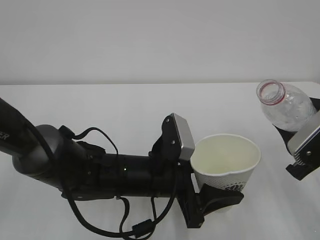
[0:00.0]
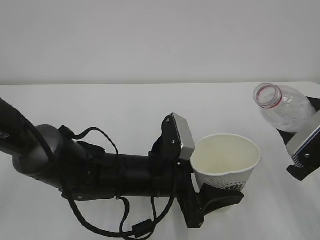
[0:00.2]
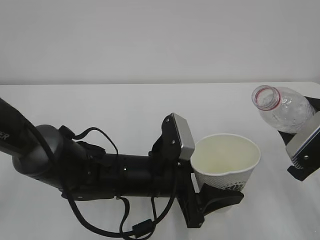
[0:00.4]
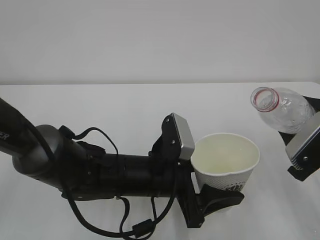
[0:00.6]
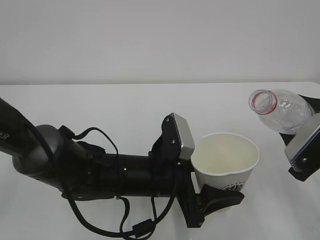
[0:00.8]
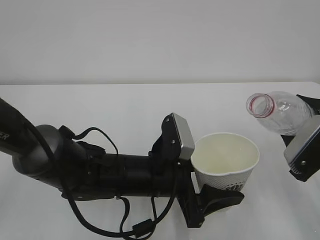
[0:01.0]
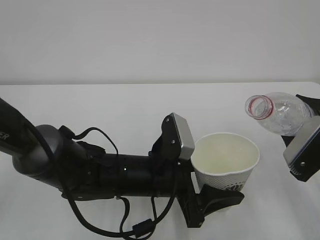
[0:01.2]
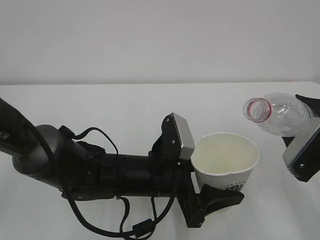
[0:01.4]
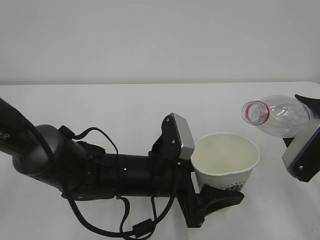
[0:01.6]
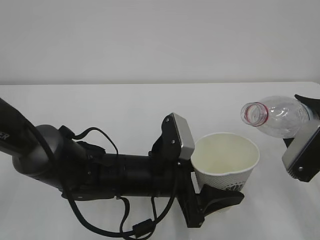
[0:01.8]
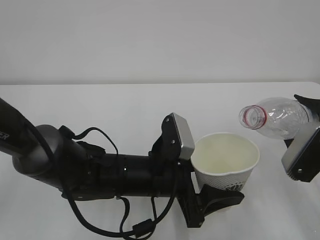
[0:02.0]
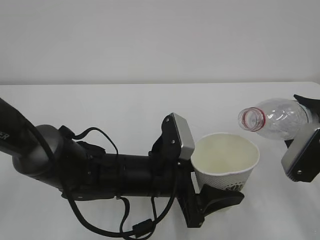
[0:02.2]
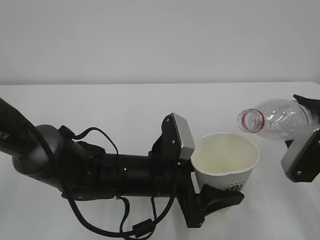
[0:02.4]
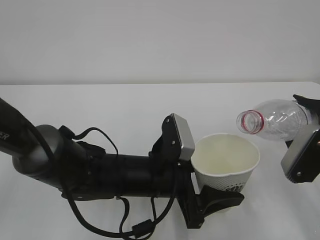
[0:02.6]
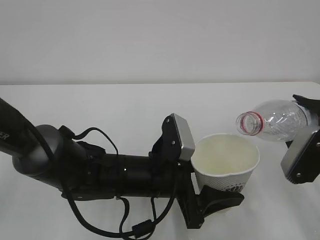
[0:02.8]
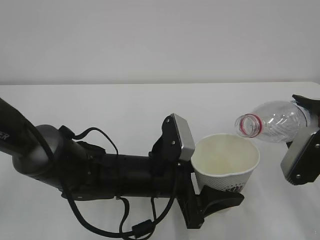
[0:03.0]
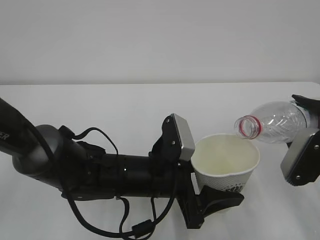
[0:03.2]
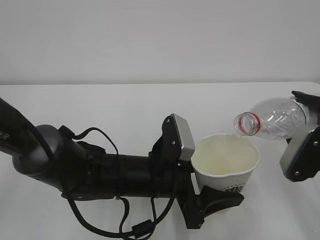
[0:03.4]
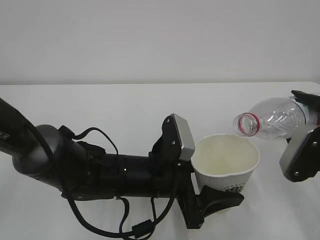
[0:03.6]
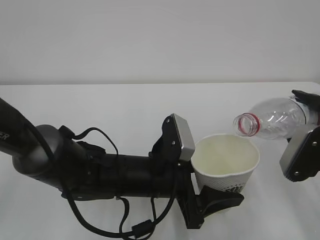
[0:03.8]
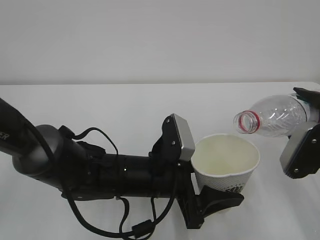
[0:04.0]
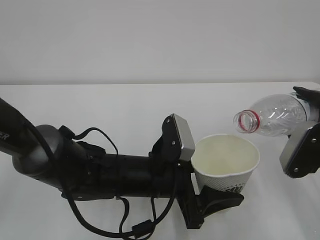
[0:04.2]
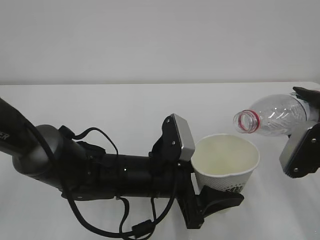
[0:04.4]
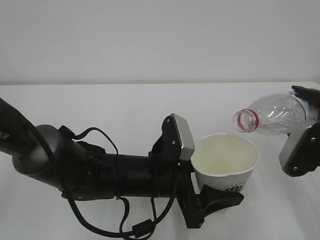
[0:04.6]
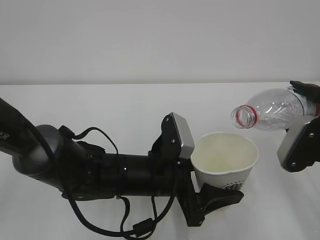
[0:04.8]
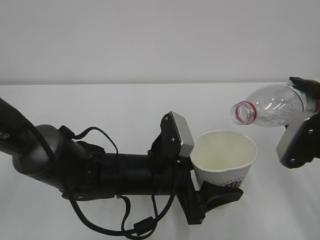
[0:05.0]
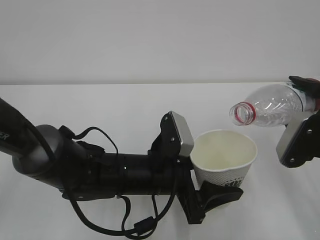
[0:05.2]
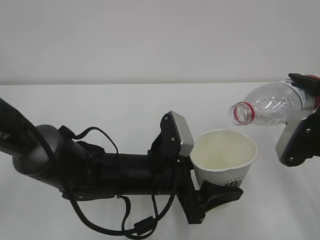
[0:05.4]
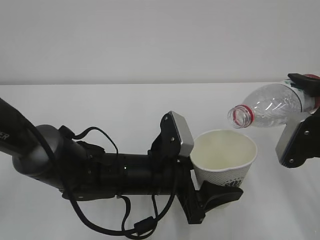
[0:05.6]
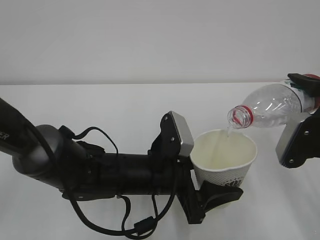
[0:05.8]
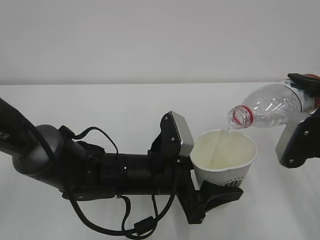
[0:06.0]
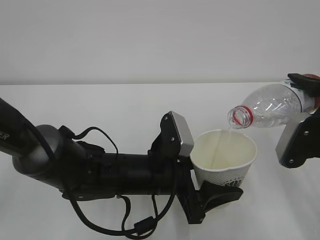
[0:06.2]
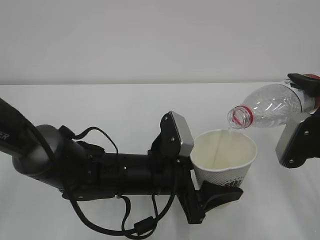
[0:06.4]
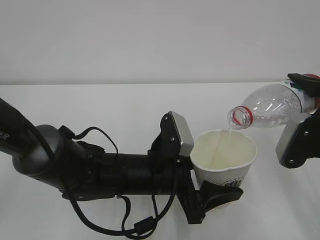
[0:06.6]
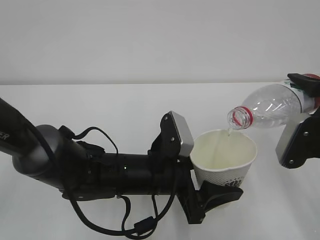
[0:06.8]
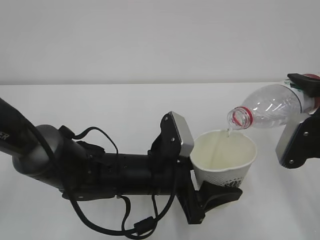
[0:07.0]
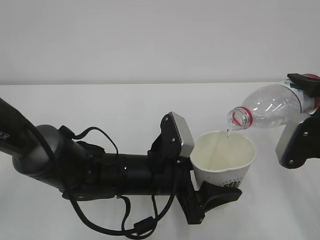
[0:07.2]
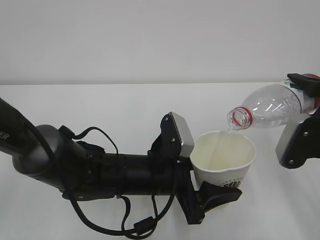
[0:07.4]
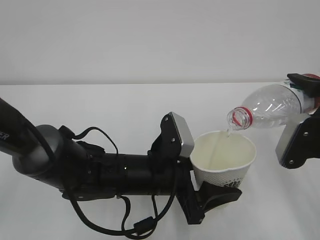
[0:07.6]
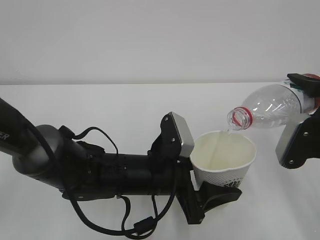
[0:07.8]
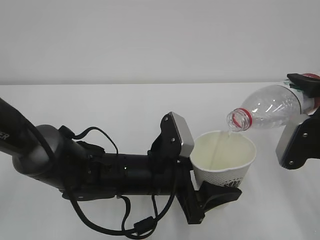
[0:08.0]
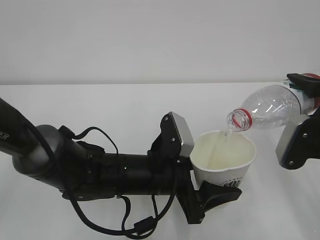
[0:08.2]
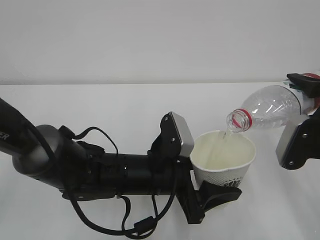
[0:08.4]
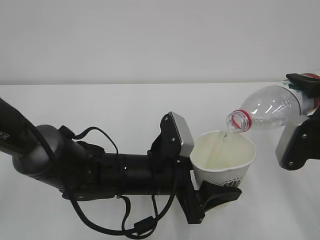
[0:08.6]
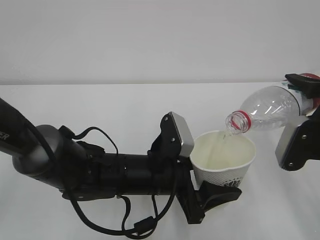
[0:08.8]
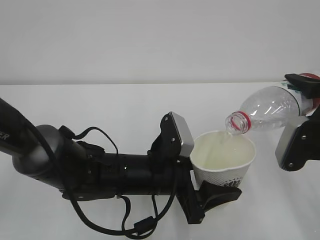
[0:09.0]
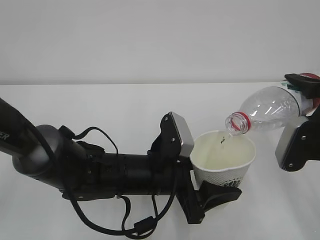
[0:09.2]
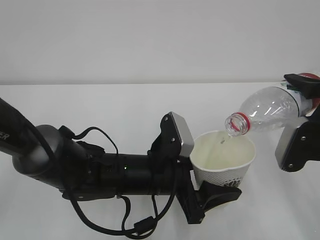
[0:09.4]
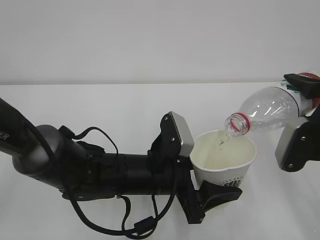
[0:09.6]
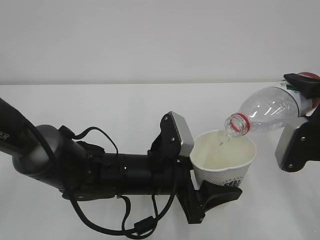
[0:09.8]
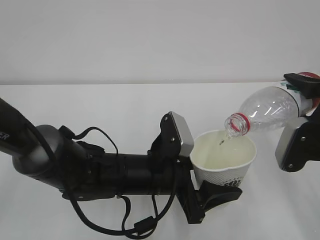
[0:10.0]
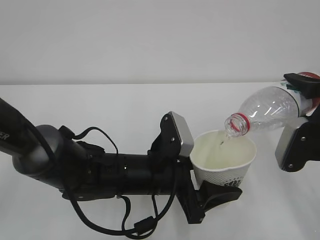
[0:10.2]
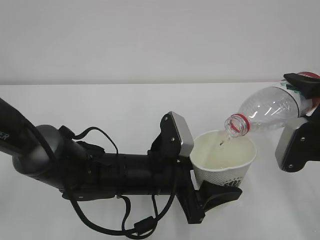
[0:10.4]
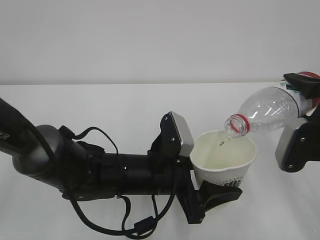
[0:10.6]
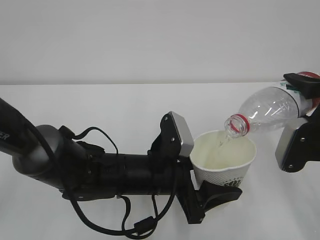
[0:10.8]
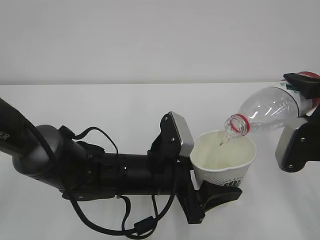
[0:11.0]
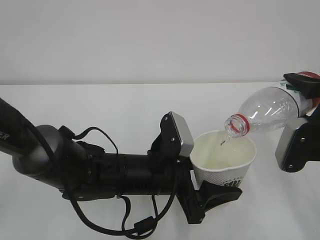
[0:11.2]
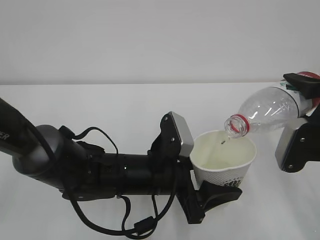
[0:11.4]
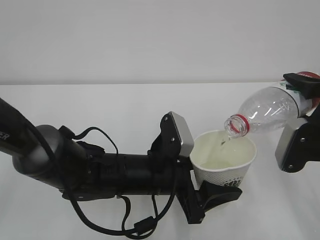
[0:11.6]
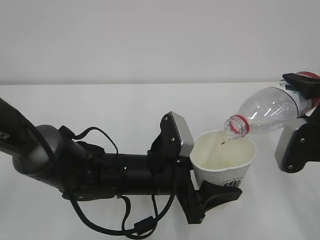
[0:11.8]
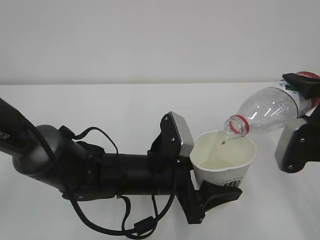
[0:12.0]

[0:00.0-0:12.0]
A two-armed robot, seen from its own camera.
0:00.0 to 0:01.6: The grippers stay close to where they were, moving slightly.
0:01.6 to 0:03.0: The grippers make only small movements.
0:03.0 to 0:04.4: The two grippers keep their place.
0:04.4 to 0:06.0: The grippers move only a little.
0:06.0 to 0:09.0: Neither gripper changes place.
0:09.0 to 0:12.0: Both grippers stay about where they are.

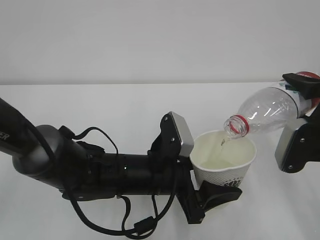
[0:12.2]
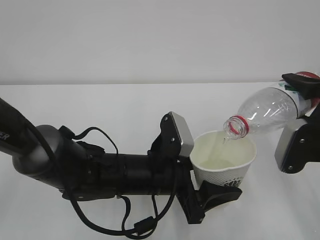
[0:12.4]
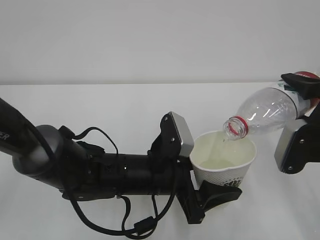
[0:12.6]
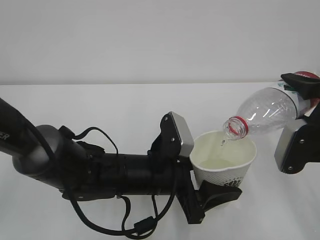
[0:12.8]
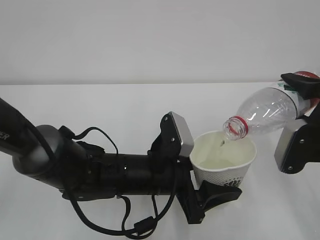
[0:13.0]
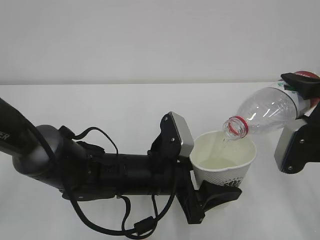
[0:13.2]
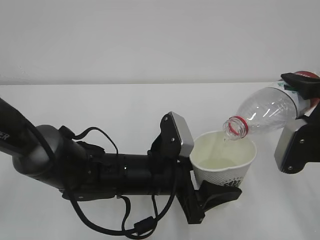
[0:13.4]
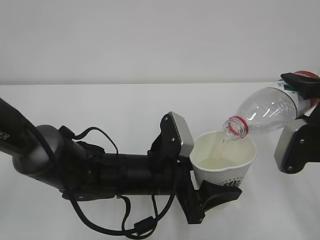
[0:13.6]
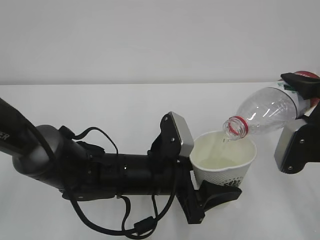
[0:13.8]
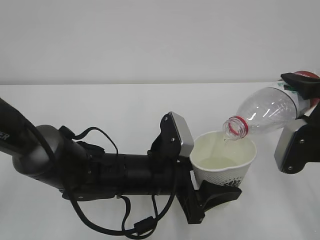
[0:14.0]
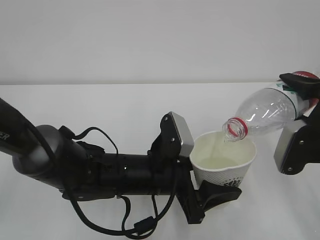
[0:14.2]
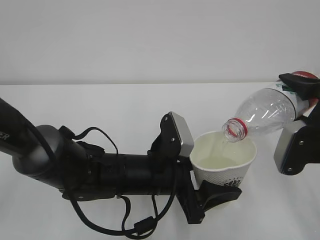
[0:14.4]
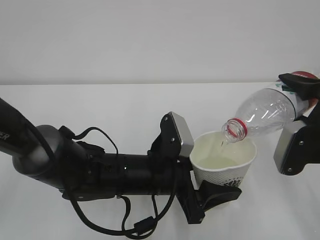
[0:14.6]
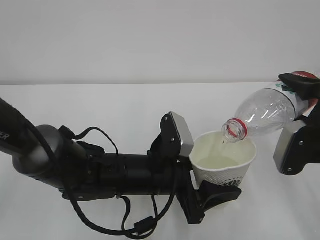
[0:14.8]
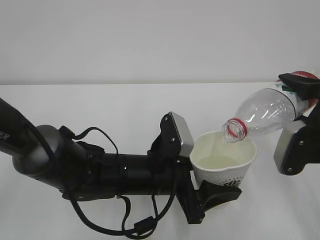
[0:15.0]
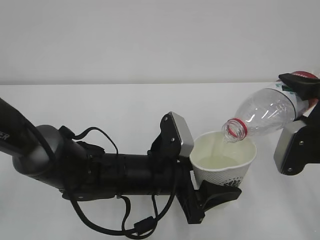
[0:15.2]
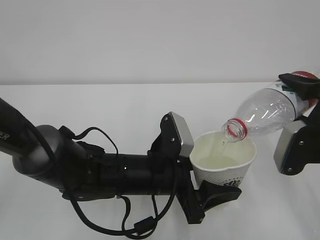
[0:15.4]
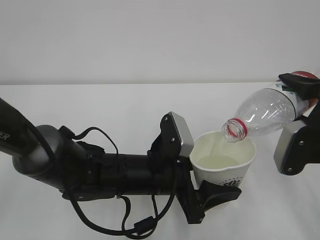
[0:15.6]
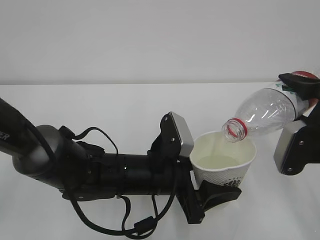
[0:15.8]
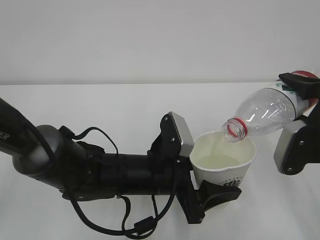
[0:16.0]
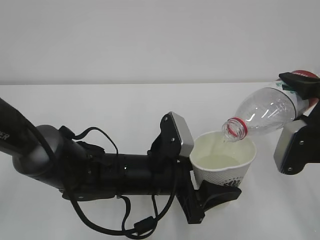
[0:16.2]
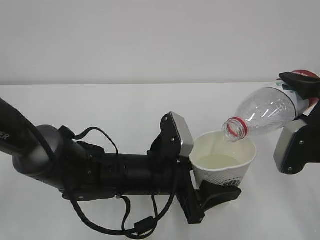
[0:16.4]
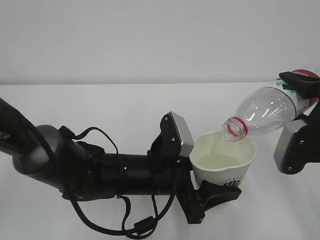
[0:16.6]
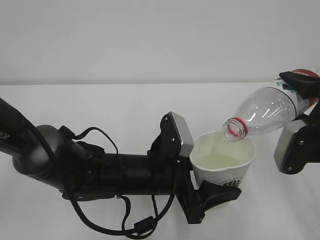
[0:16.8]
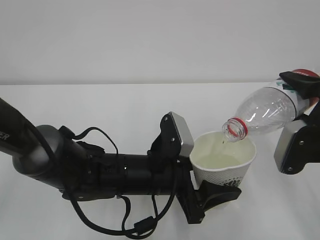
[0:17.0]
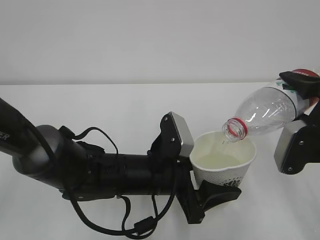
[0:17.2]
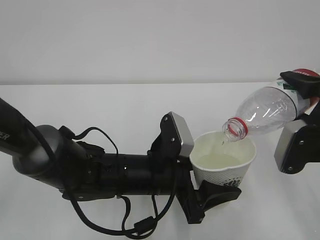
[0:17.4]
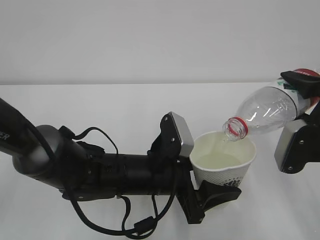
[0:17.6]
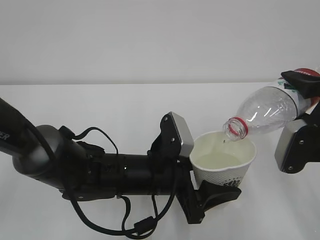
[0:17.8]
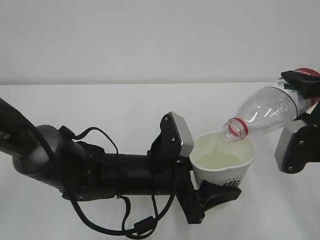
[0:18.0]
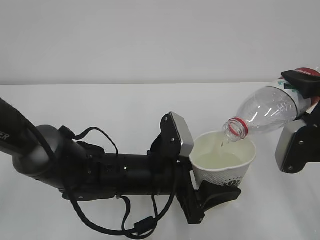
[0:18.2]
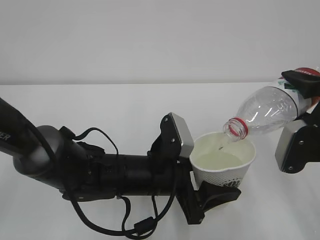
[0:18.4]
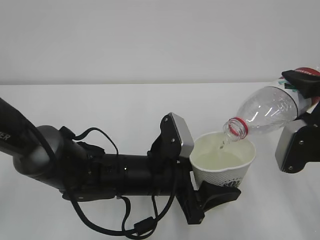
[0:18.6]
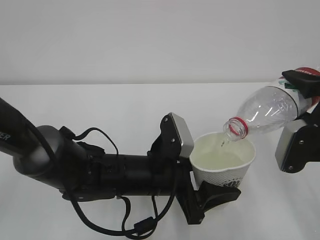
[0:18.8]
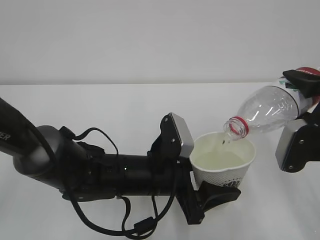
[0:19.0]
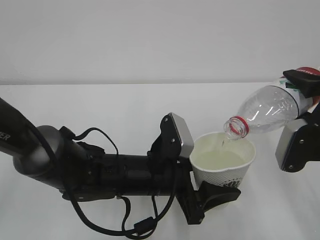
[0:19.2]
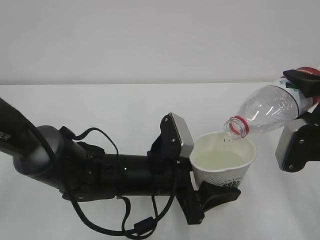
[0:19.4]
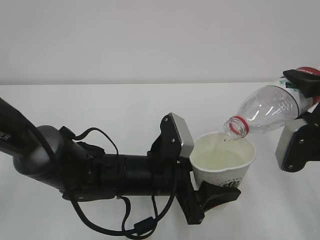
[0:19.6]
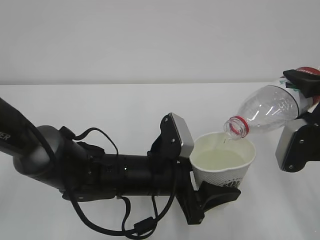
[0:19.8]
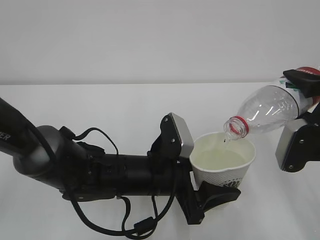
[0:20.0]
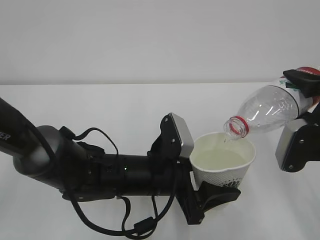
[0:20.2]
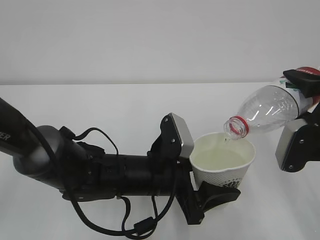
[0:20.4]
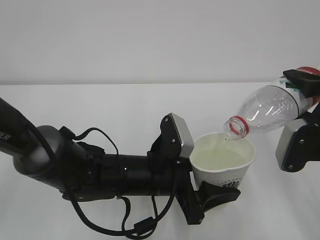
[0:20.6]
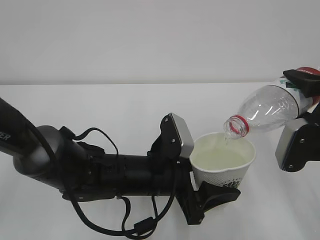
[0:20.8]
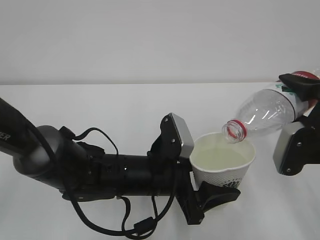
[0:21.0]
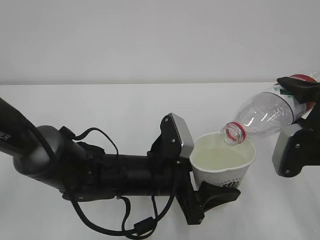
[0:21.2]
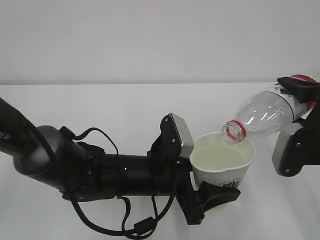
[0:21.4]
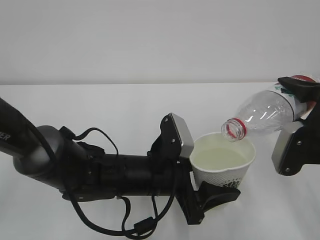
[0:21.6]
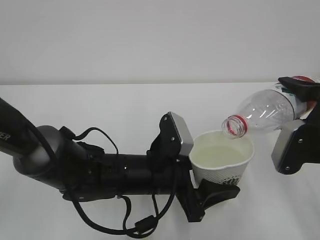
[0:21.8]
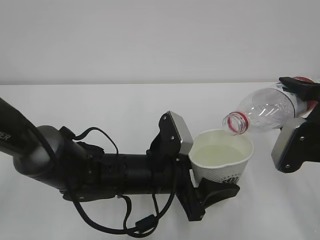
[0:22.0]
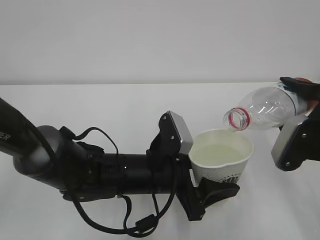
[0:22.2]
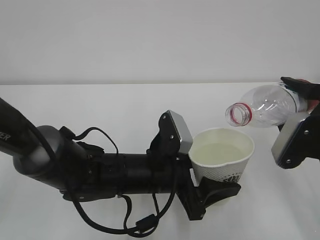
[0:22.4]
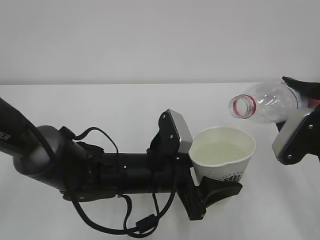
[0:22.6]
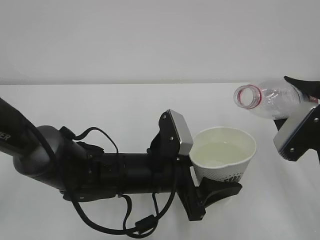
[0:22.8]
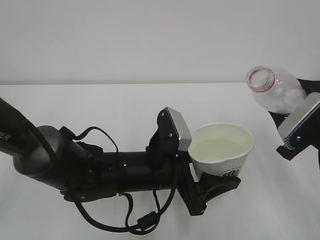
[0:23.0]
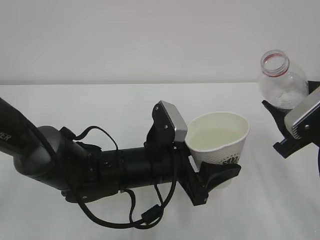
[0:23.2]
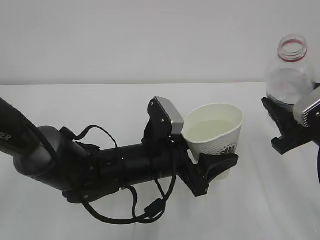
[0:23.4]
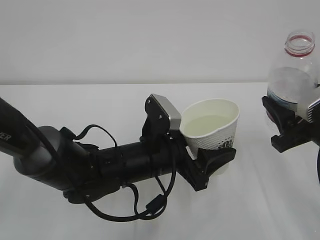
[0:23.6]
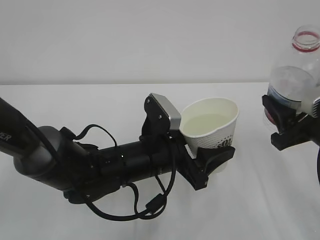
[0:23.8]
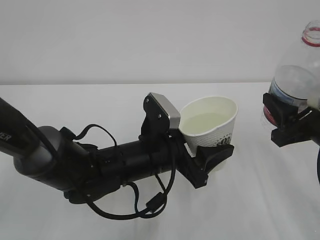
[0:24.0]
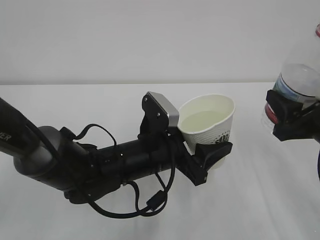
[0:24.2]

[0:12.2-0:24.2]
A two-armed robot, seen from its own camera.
0:12.2 to 0:21.2: Both grippers stay put.
0:21.2 to 0:22.6: The grippers make only small movements.
